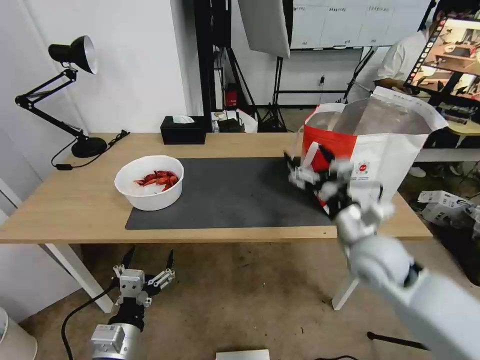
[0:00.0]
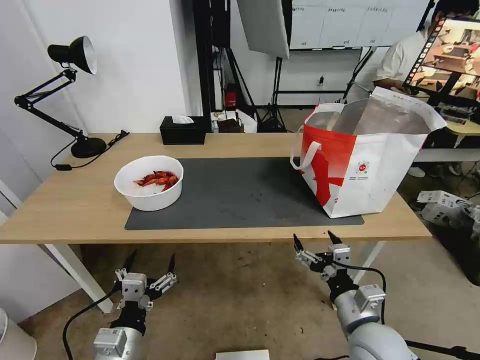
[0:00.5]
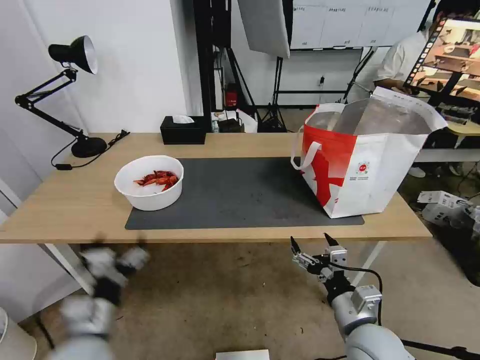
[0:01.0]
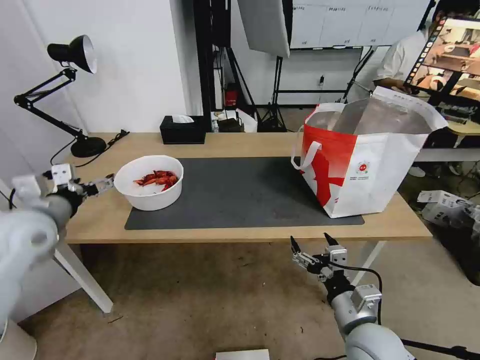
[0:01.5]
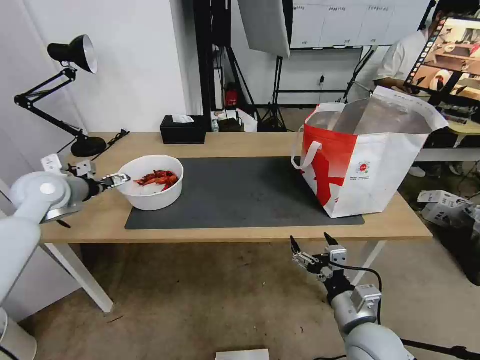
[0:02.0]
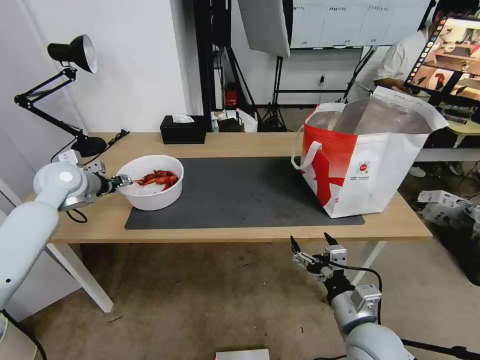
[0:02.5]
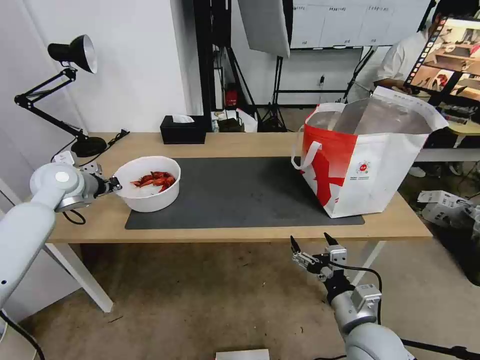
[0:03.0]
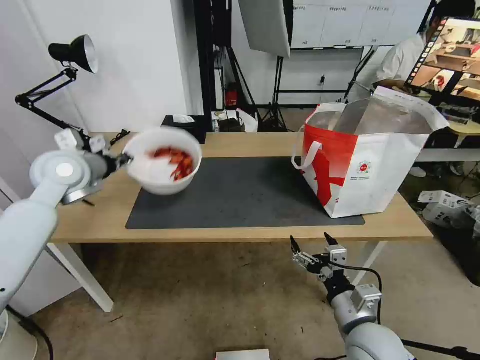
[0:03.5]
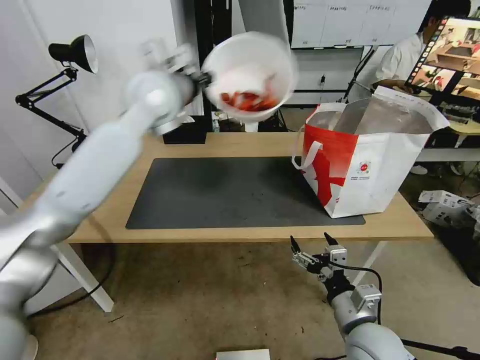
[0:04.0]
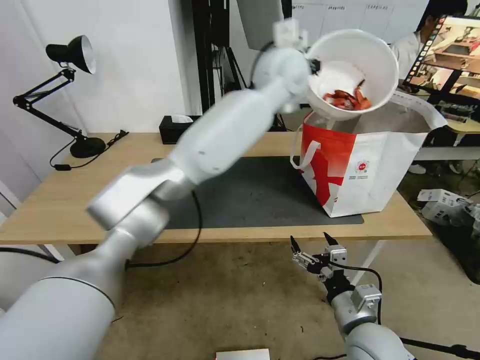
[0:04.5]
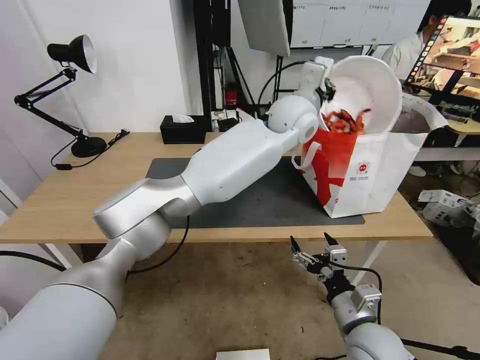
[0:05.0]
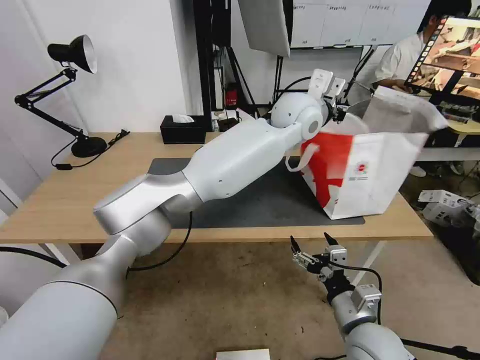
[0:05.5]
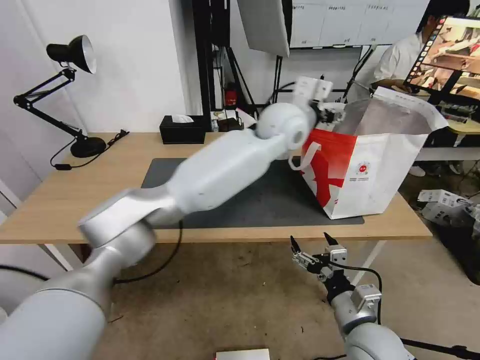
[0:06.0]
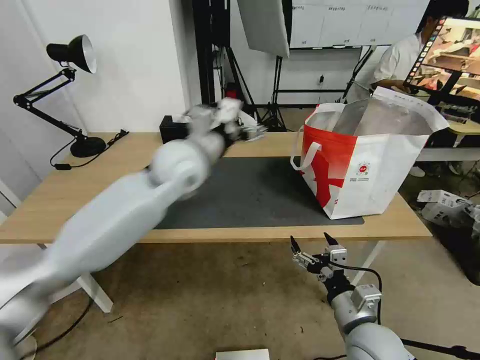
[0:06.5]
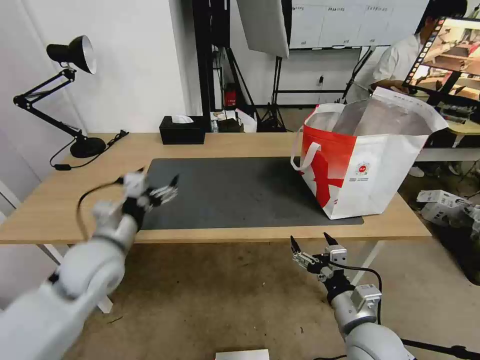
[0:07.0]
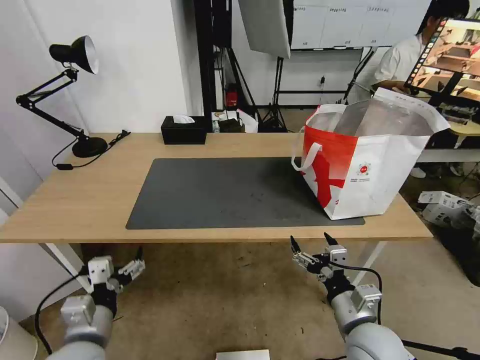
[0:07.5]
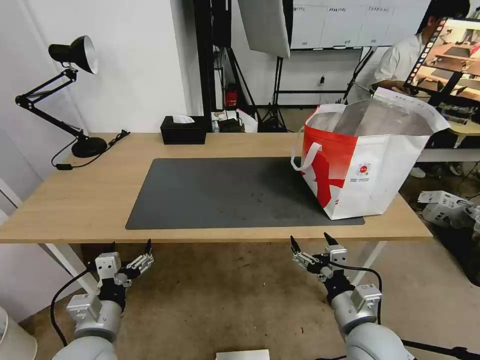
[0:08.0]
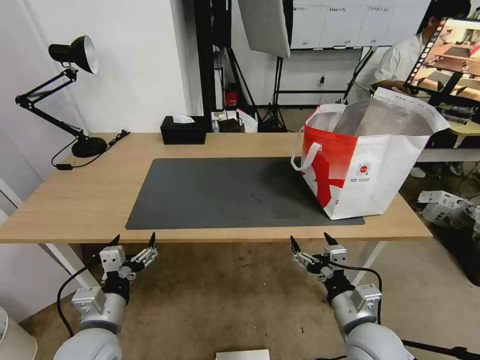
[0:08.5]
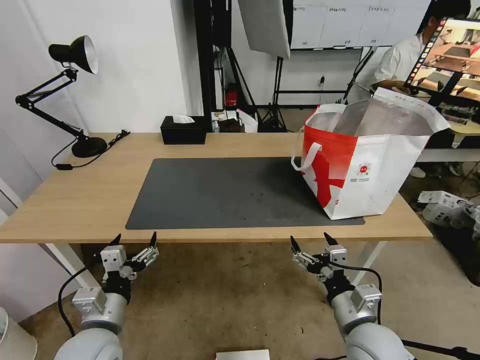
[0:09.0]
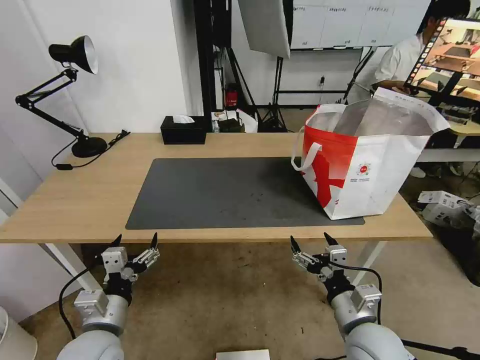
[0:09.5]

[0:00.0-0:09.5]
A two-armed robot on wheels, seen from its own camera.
Task of the whole recording: Pick up the trash from the table and place it into the takeout bag.
0:00.0 to 0:02.0: The left gripper heads forward, to the left and upward, covering some 40 cm. The right gripper moves backward and downward, roughly 15 cm.
0:02.0 to 0:04.0: The left gripper moves to the right and upward, some 30 cm, and closes.
0:04.0 to 0:05.5: The left gripper is displaced to the right by about 25 cm.
0:05.5 to 0:07.5: The left gripper goes some 60 cm to the left, backward and downward, and opens its fingers.
0:07.5 to 0:09.5: The grippers move only a little.

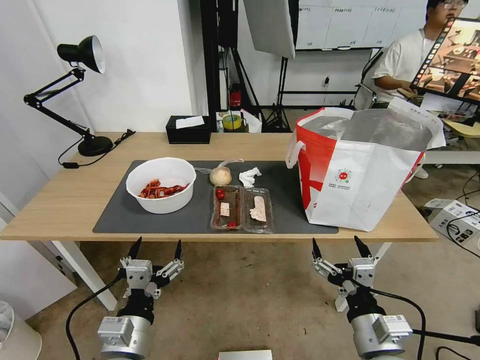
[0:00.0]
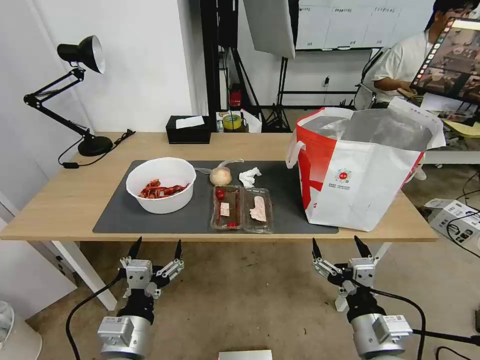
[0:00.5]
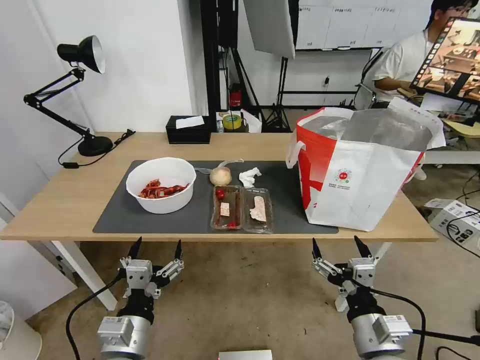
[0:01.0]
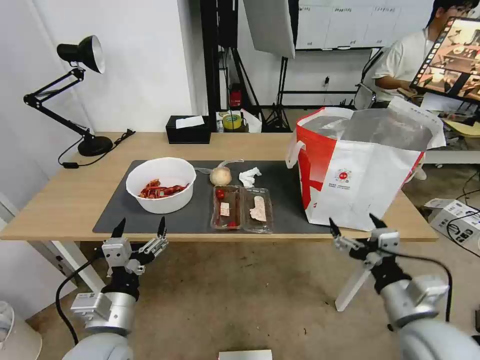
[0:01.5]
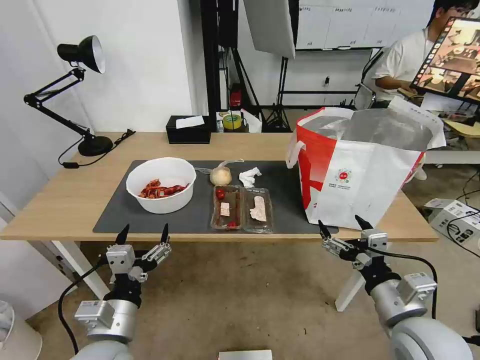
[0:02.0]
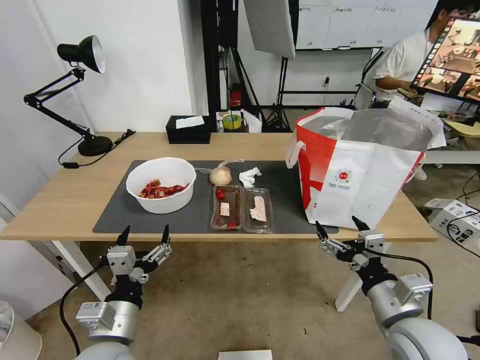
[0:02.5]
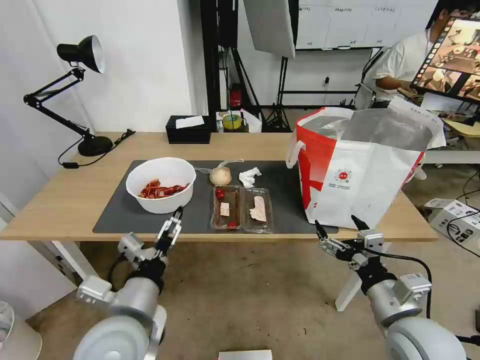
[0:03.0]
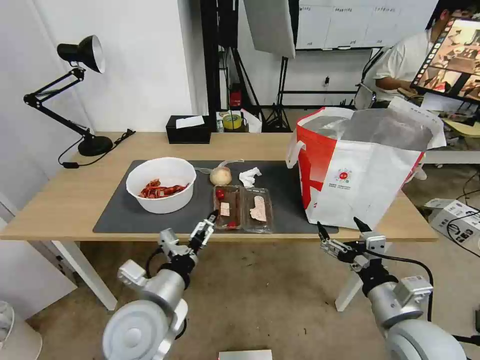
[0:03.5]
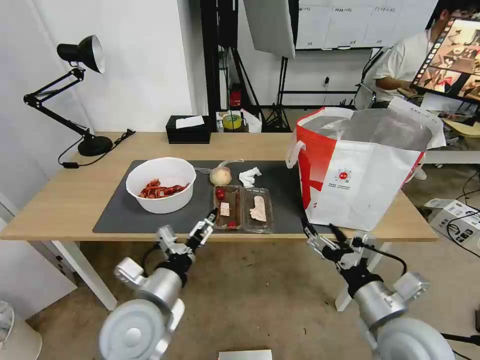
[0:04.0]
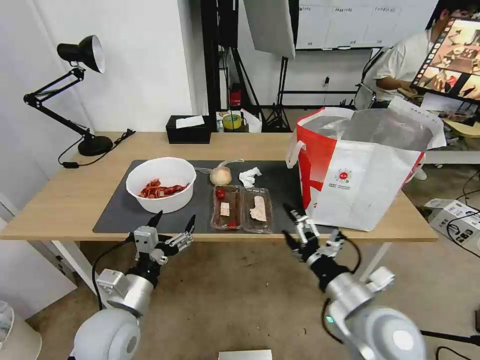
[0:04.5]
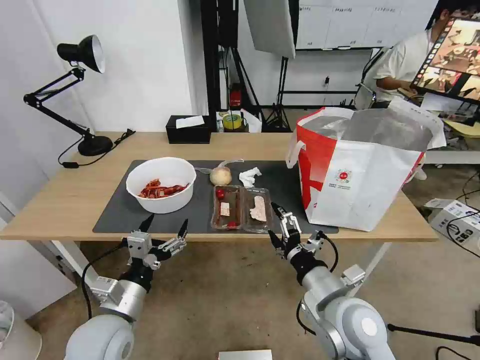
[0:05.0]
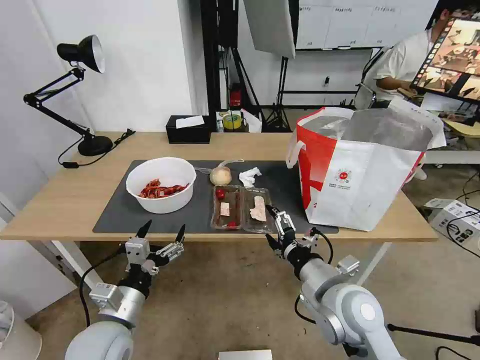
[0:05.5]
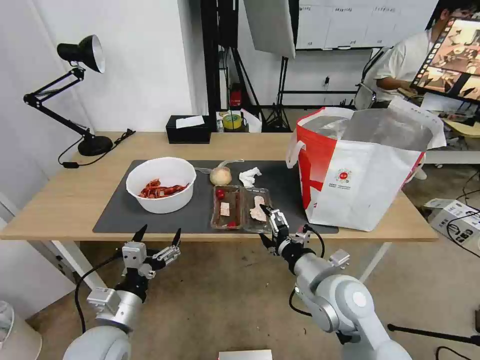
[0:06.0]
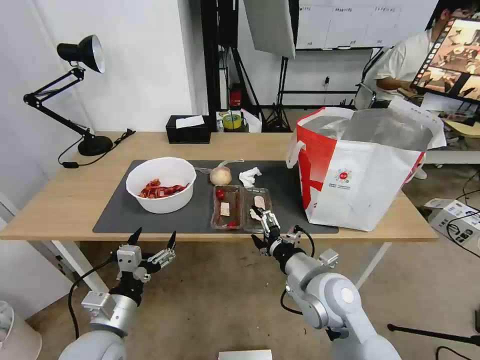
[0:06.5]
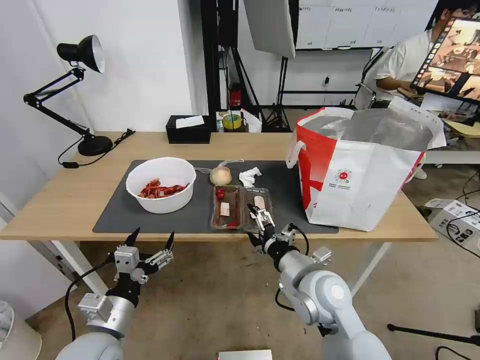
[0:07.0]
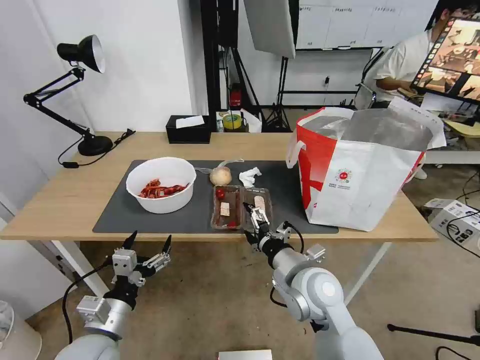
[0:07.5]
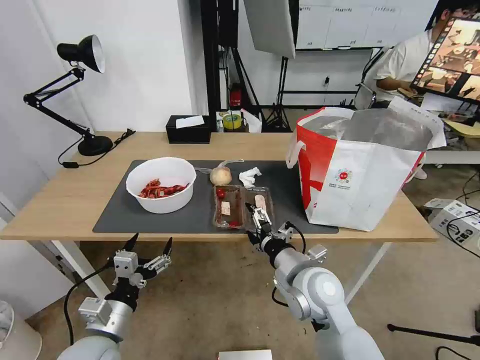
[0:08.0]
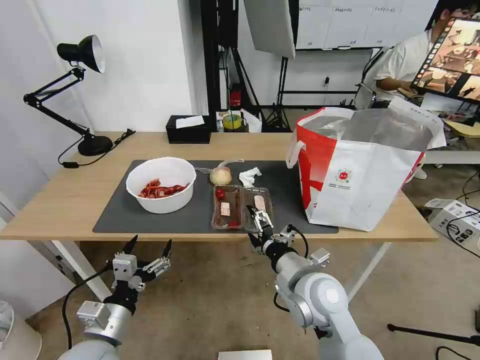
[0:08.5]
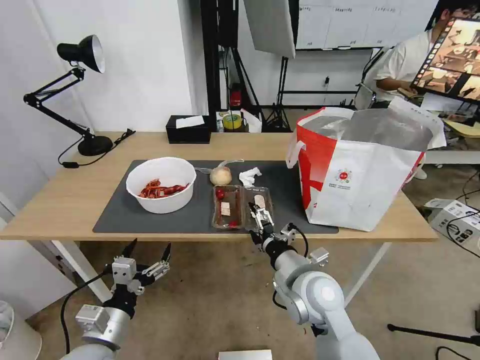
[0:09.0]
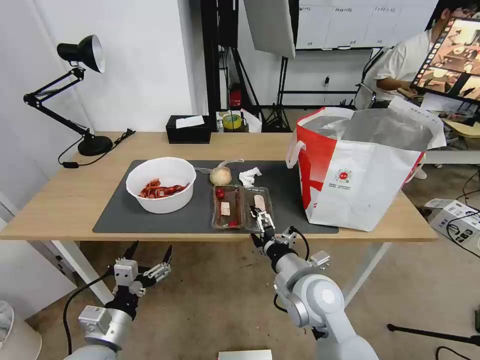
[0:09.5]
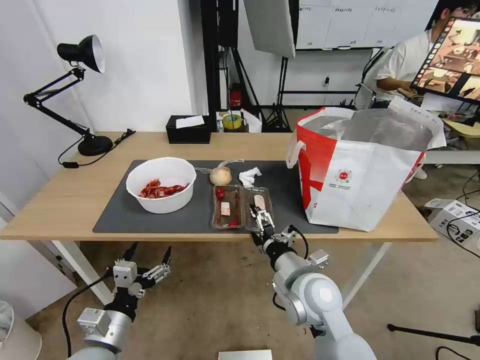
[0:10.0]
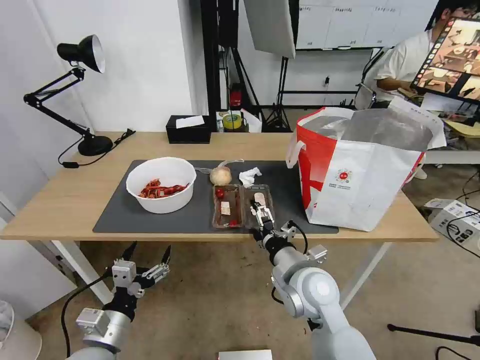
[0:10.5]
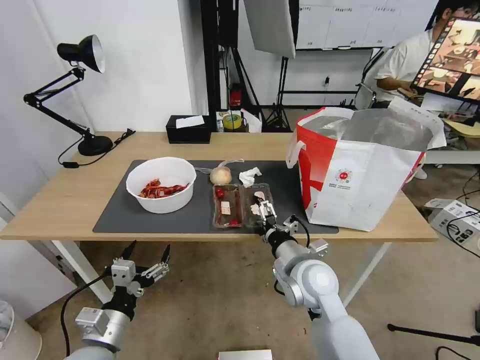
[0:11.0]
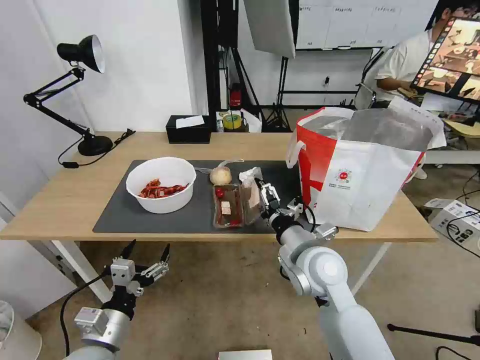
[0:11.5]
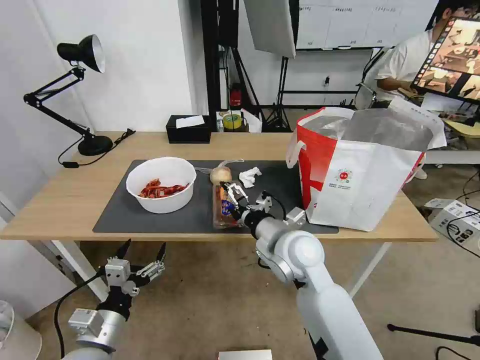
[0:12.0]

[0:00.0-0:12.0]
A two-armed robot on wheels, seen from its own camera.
Task of the whole recording: Pick up the trash from the table and place it into the takeout bag.
0:02.0 to 0:04.0: The left gripper goes roughly 10 cm to the right and forward.
0:04.0 to 0:06.0: The right gripper moves to the left and forward, roughly 10 cm, while the left gripper shifts some 10 cm to the left and downward.
0:06.0 to 0:10.0: The grippers make only small movements.
0:10.0 to 0:12.0: The right gripper travels forward and upward by approximately 10 cm.

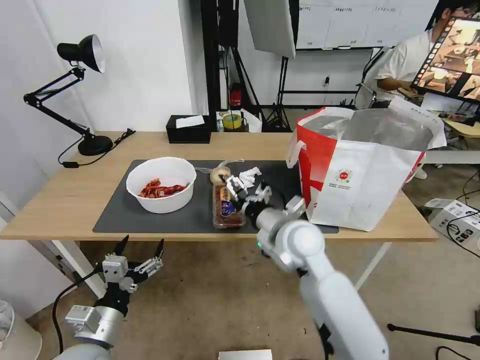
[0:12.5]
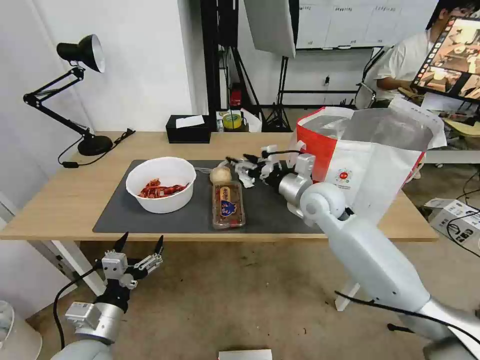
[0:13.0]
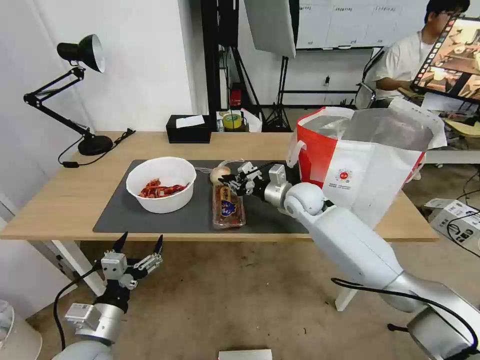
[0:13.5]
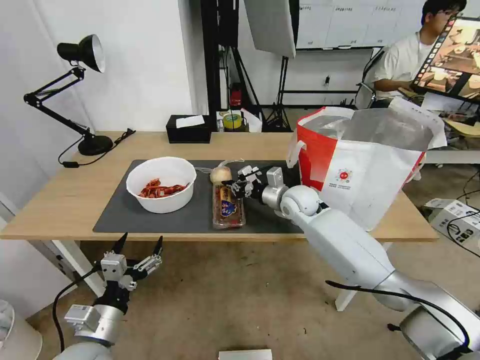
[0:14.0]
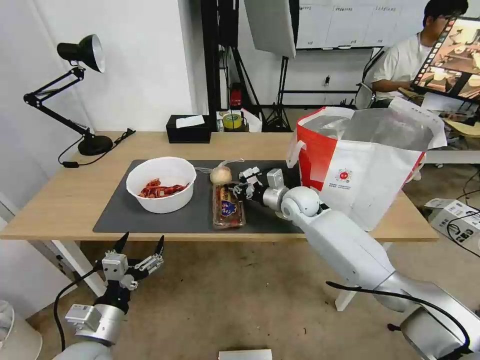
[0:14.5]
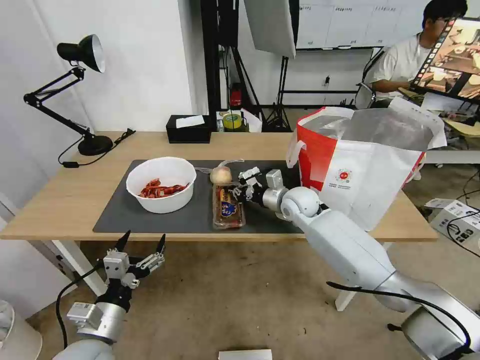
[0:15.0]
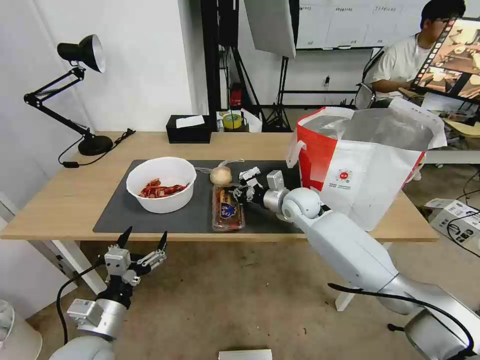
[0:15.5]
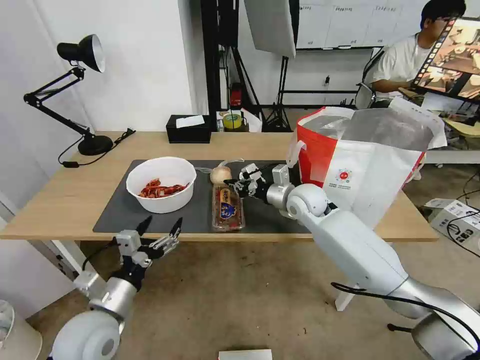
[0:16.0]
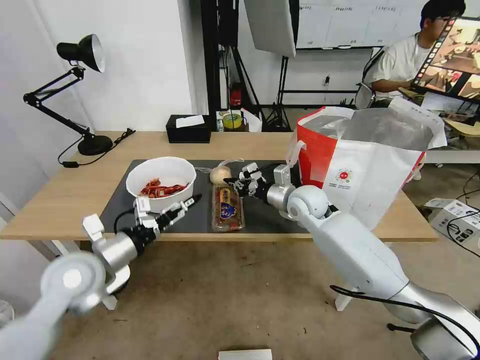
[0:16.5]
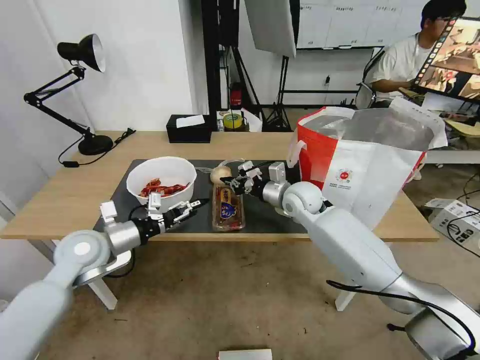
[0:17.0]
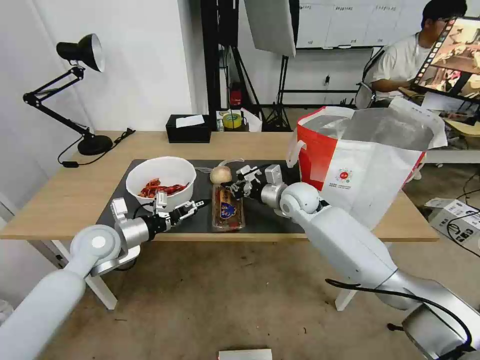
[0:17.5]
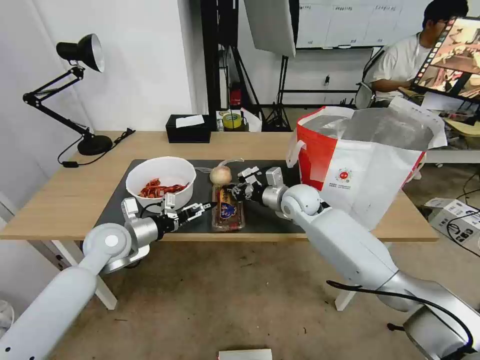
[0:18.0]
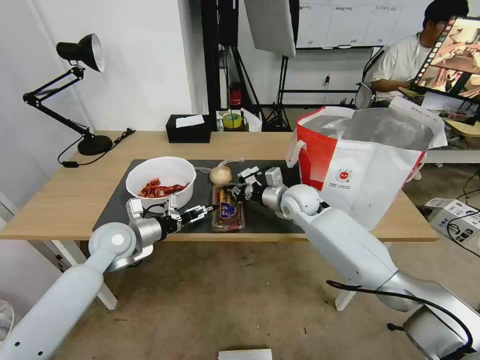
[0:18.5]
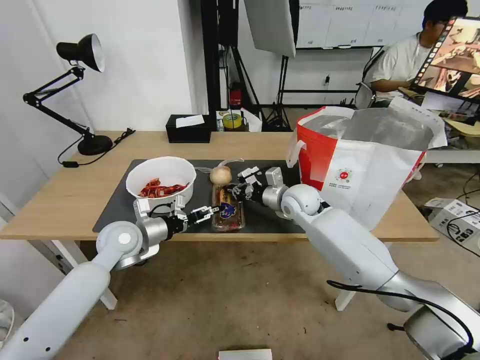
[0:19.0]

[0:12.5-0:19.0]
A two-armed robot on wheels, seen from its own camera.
Task of the whole recording: Pick up the trash from the table and place it into the takeout bag.
0:12.5 to 0:14.5: The right gripper heads forward, covering about 15 cm, and closes its fingers.
0:14.5 to 0:17.0: The left gripper shifts about 20 cm forward and upward.
0:17.0 to 0:19.0: The left gripper changes place by some 5 cm.
